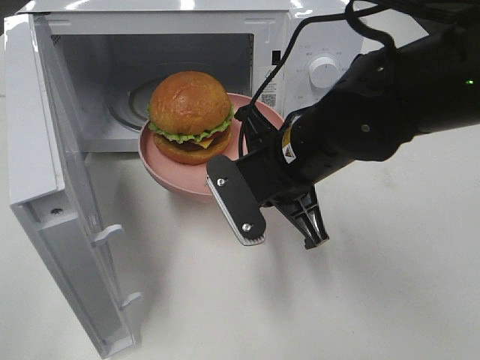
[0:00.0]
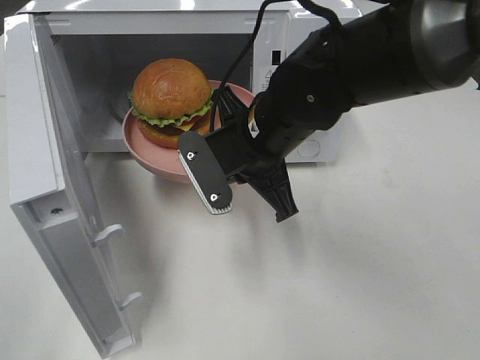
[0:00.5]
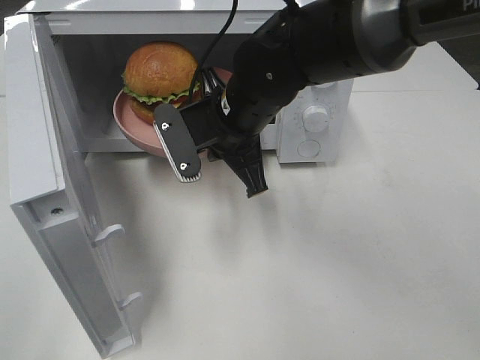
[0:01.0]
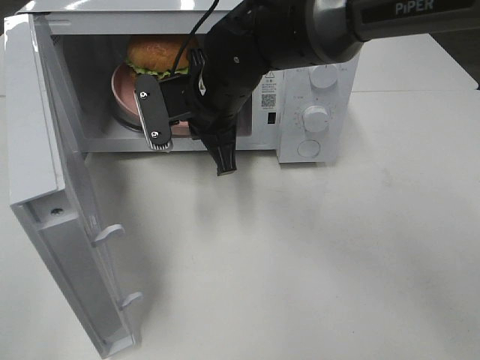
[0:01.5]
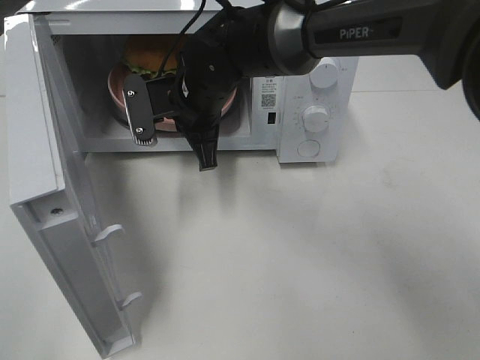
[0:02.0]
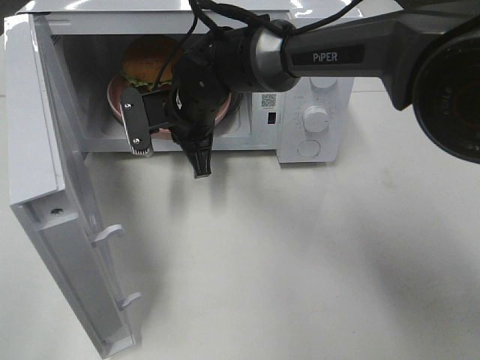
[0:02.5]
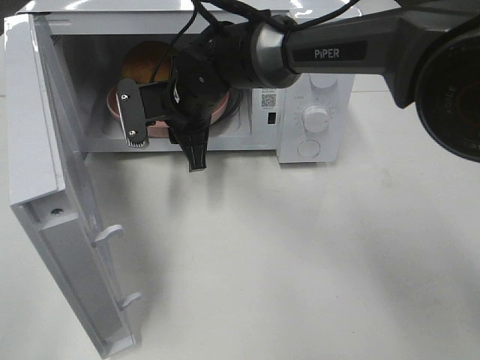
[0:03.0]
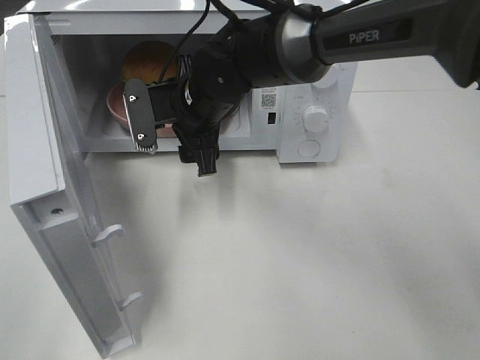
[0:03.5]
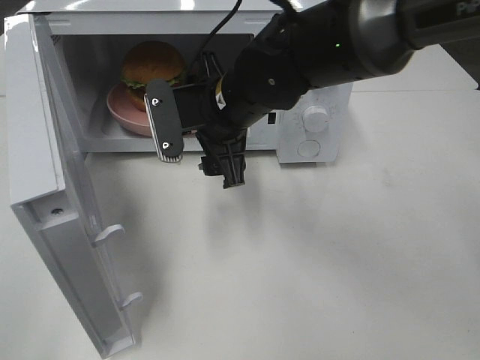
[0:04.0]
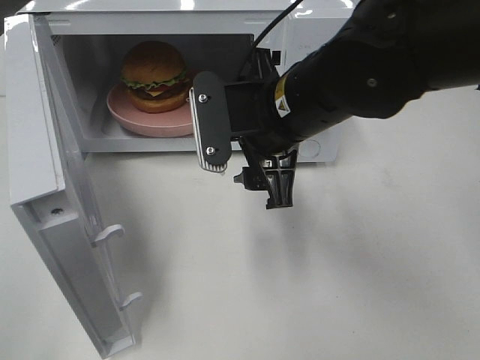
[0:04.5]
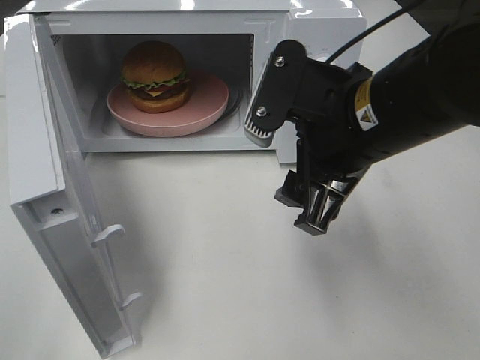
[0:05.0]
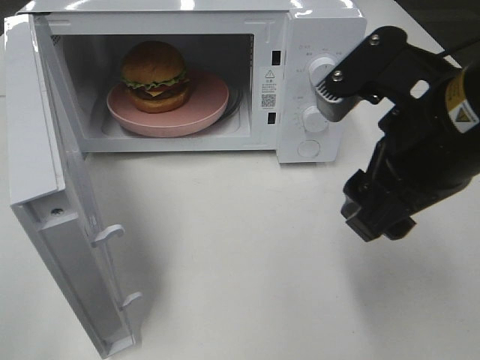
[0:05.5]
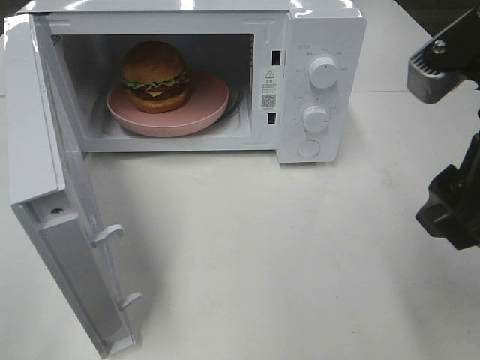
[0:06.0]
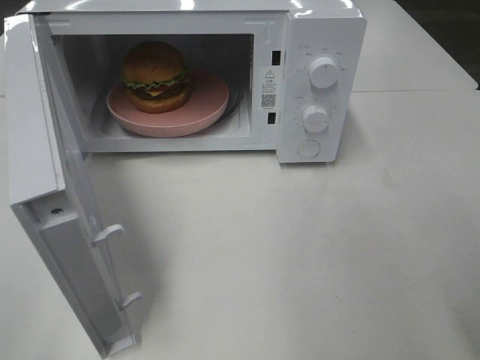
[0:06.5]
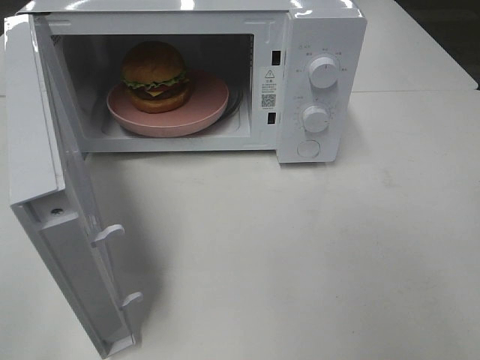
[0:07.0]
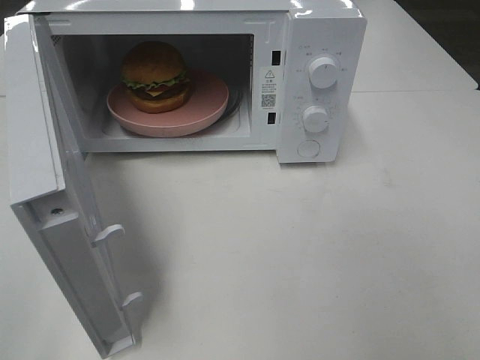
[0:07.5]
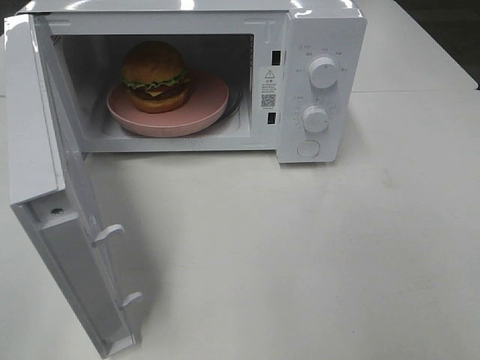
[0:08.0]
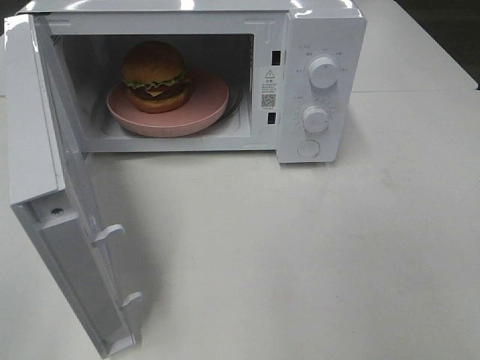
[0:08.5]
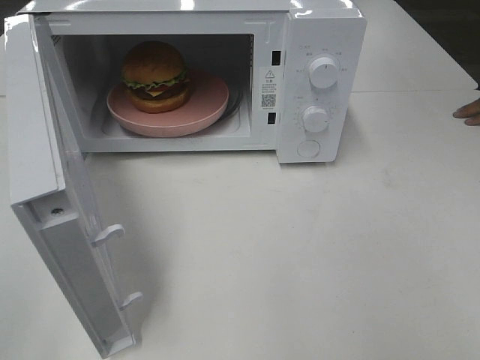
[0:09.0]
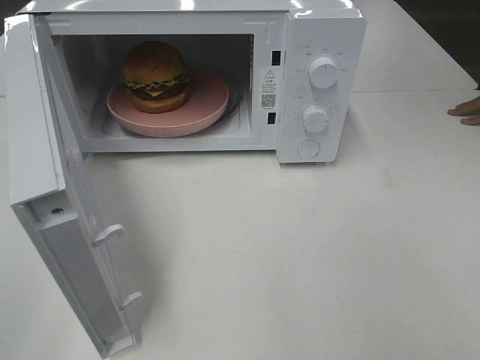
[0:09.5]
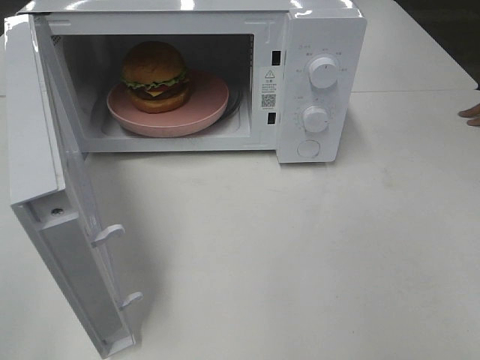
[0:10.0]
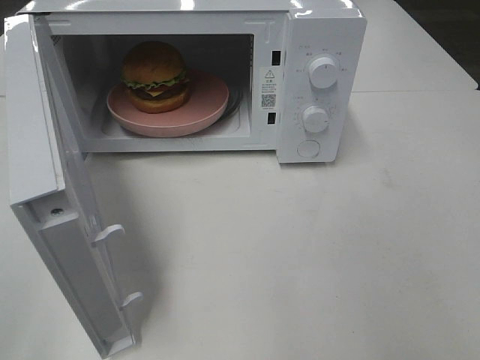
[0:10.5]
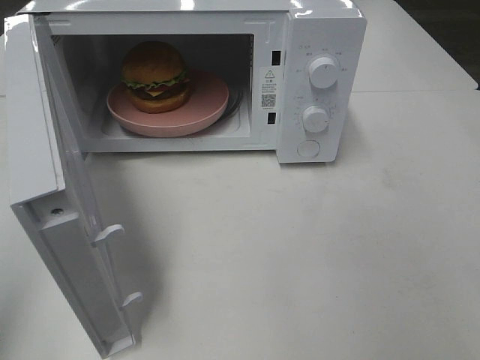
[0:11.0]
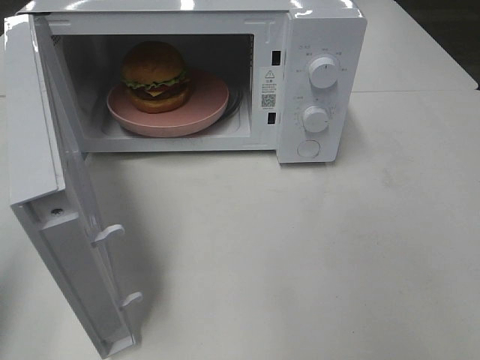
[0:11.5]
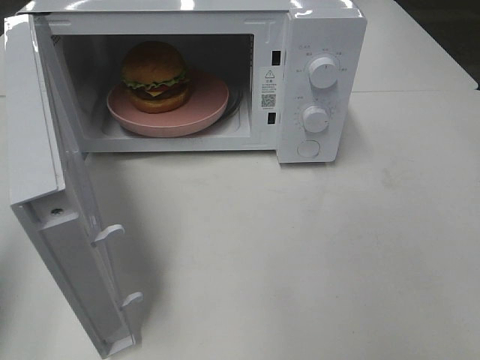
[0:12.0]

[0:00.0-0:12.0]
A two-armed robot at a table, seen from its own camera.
Task of the whole recording: Heat the burger.
Step, 0.0 to 3.0 s: Right hand: place the plate in the microwave.
0.0 to 2.0 s: The right gripper is displaced forward and to the left by about 15 cm.
2.0 to 4.0 s: The right gripper is displaced backward by approximately 5 cm, and opens.
4.0 to 6.0 s: The right gripper is displaced backward, to the right and upward by some 25 cm.
6.0 to 8.0 s: The right gripper shifts about 20 cm backward and to the right.
8.0 to 10.0 s: The two grippers keep their place.
10.0 to 12.0 s: The left gripper shifts approximately 15 cm forward, and closes its fingers.

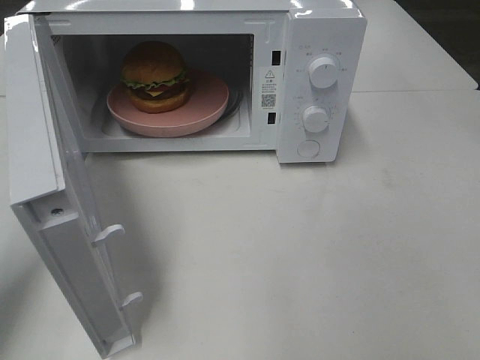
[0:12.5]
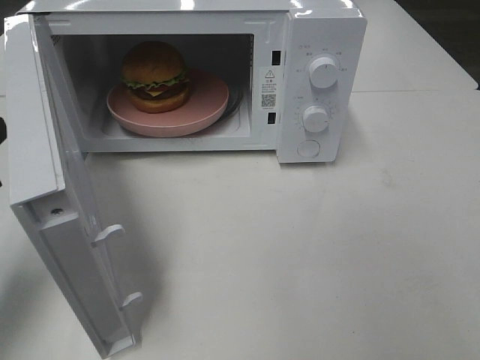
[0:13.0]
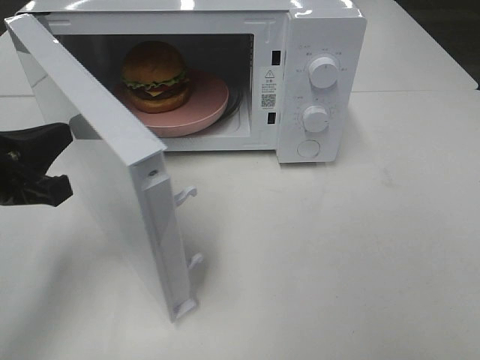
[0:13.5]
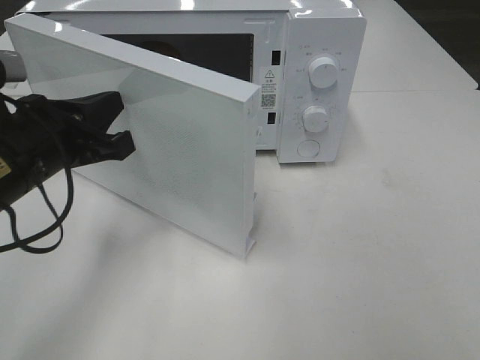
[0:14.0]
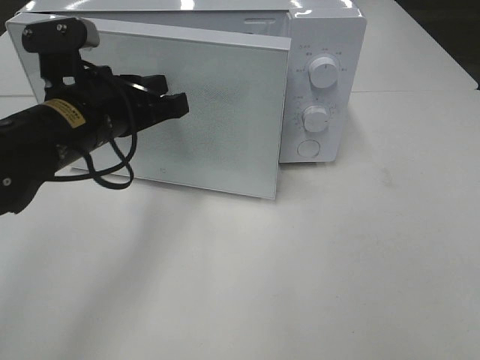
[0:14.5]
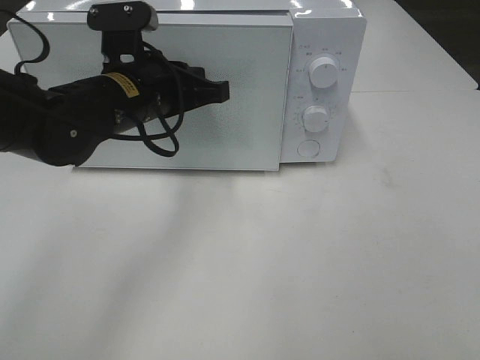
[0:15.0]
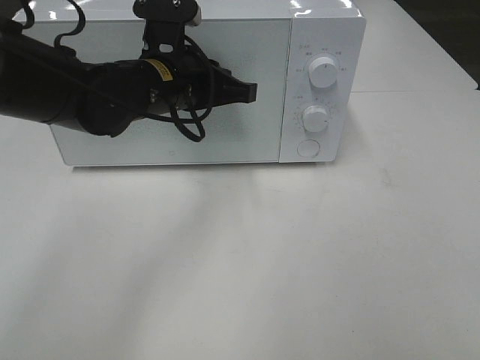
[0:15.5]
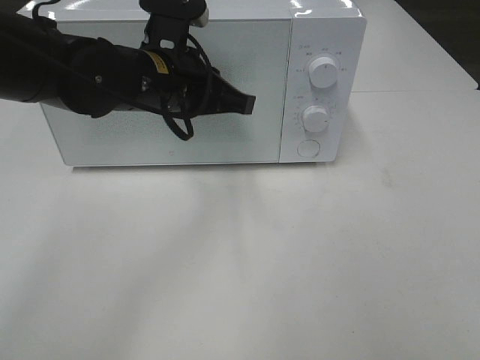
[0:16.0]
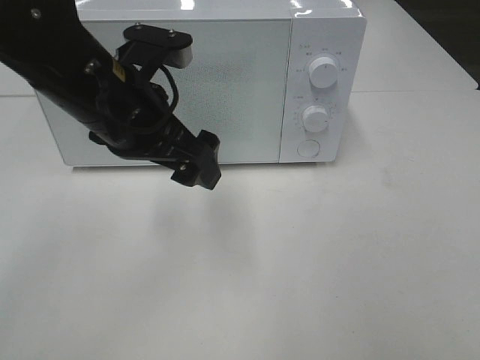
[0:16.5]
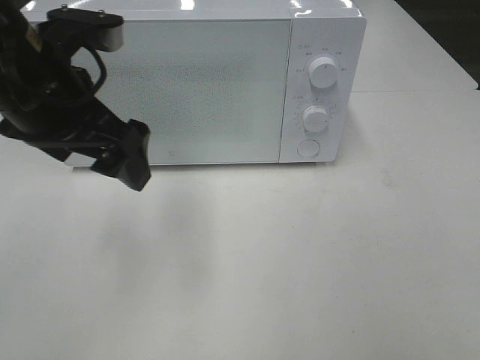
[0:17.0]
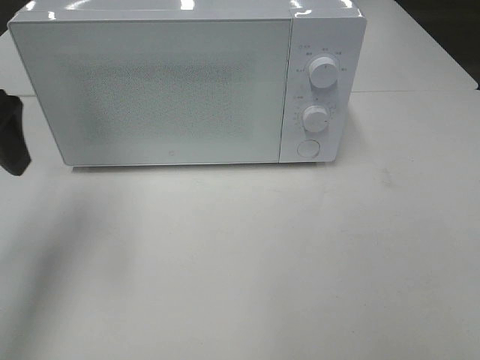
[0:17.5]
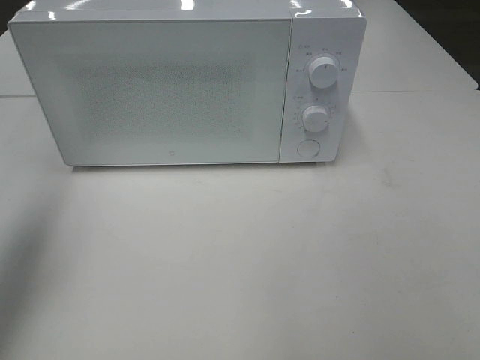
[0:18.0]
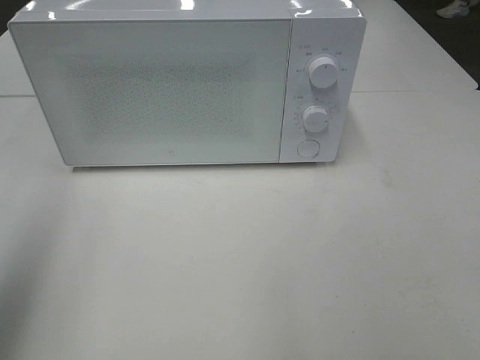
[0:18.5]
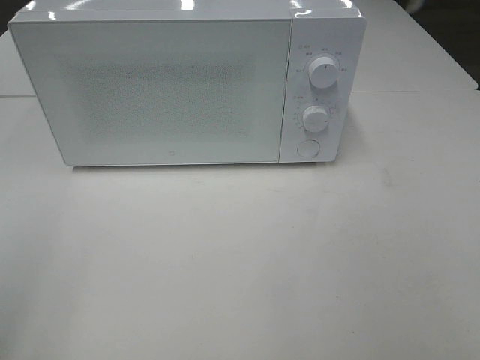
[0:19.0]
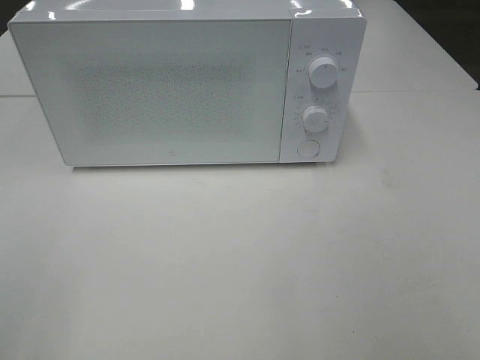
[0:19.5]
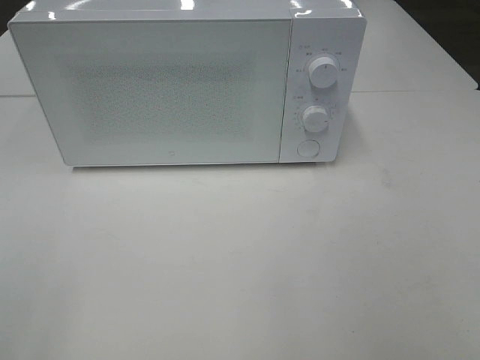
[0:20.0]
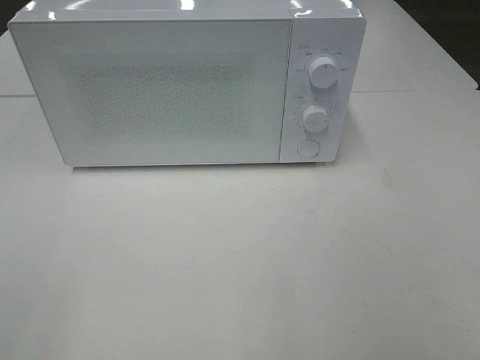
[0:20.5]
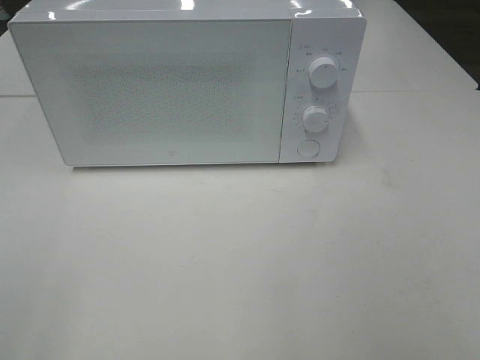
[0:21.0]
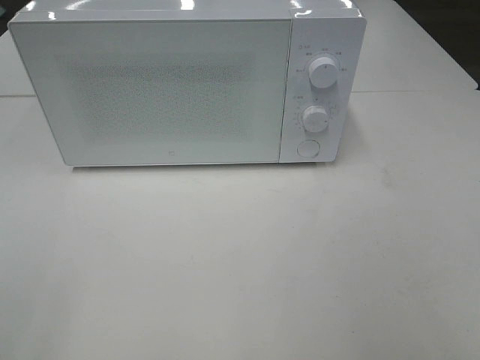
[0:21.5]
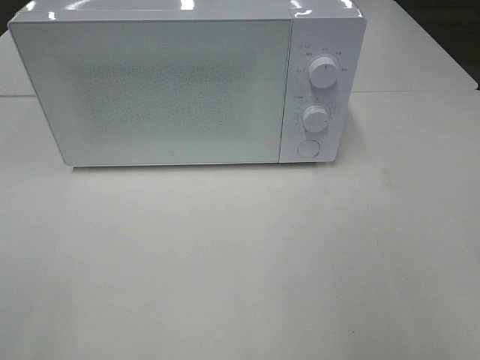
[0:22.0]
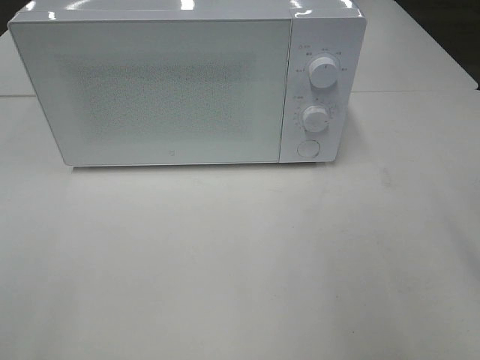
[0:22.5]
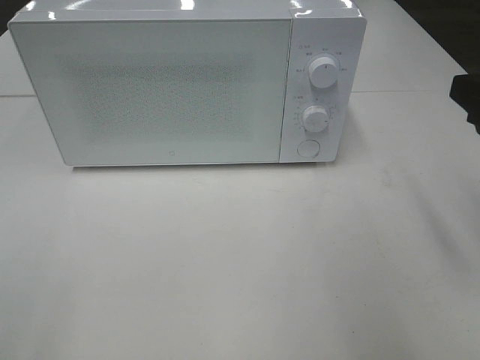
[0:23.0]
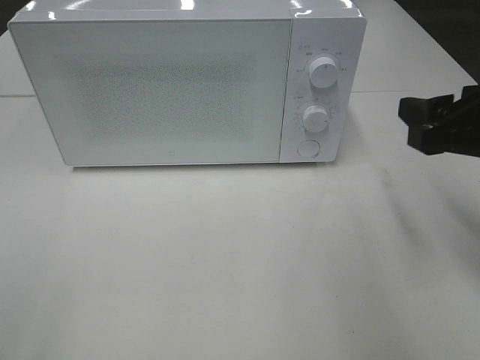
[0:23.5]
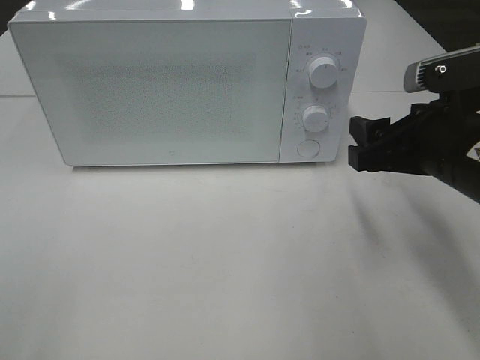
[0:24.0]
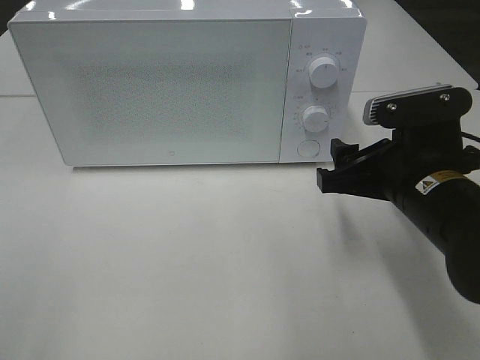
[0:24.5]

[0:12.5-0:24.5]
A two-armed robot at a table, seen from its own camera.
Task of the whole recording: Heat the burger.
Step, 12.5 to 15.5 s: Left hand: close the microwave door.
12.5 to 14.5 s: The left gripper shifts roughly 20 cm to the right and forward.
14.5 to 16.5 s: The left gripper travels forward and back again, approximately 5 cm each way, and opens its fingers.
16.5 to 18.5 s: The left gripper shifts about 30 cm to the left, upward and backward.
18.5 to 20.5 s: The left gripper heads backward and downward, covering about 20 cm.
22.5 to 24.5 s: The right gripper goes about 20 cm downward, to the left and forward.

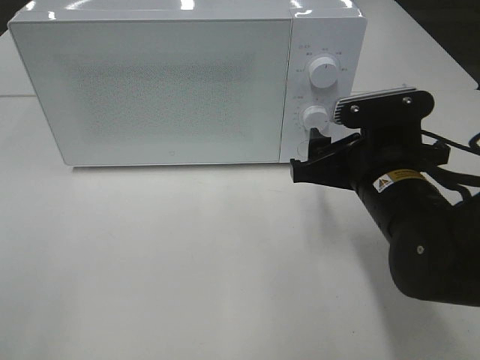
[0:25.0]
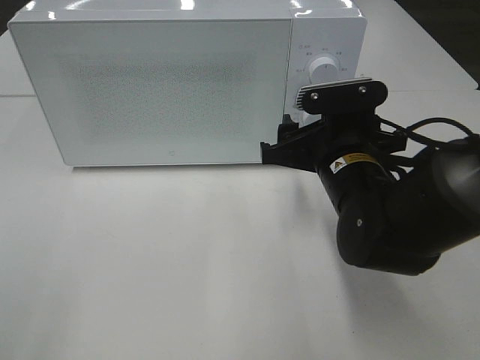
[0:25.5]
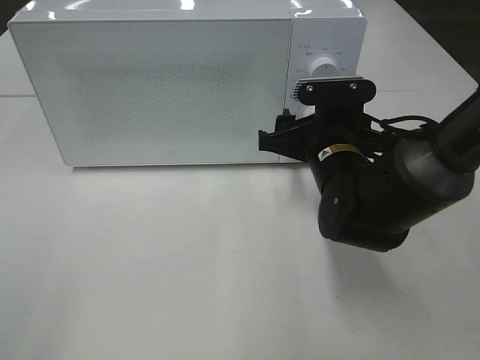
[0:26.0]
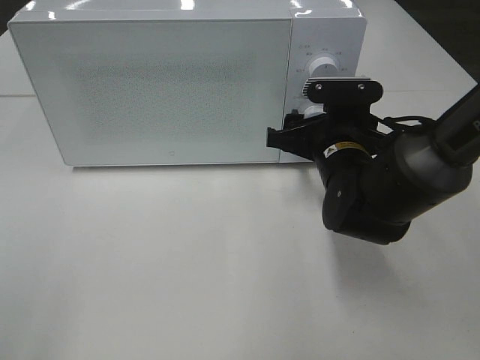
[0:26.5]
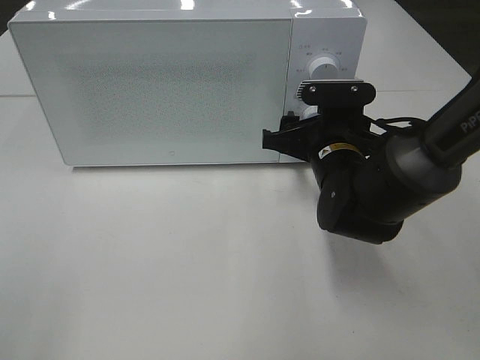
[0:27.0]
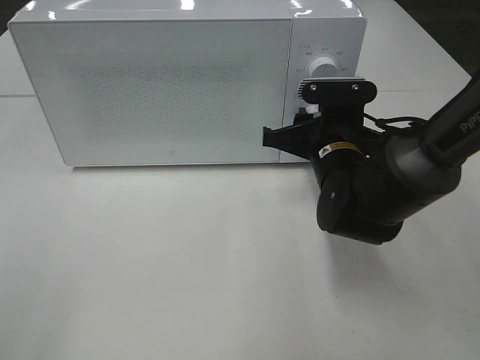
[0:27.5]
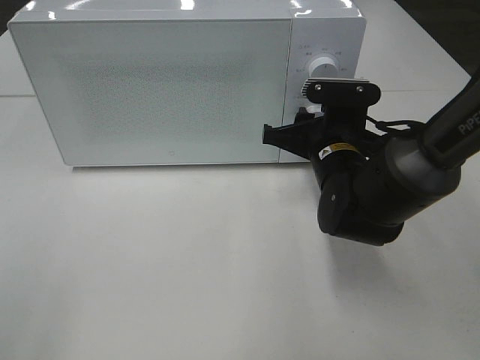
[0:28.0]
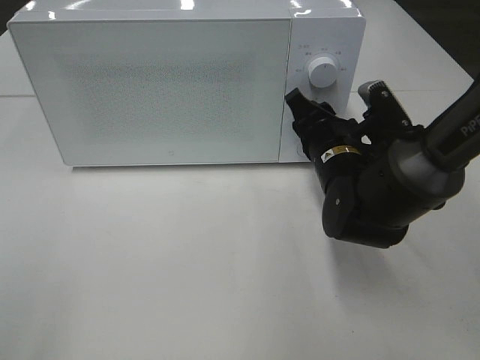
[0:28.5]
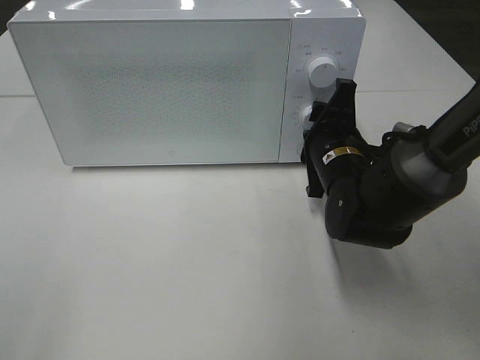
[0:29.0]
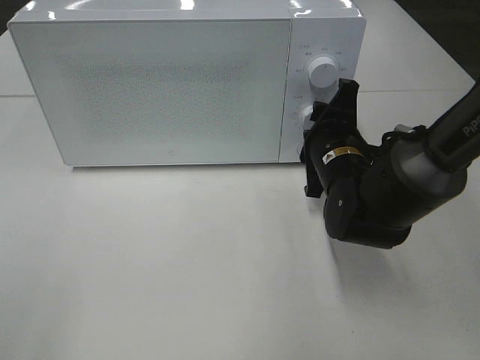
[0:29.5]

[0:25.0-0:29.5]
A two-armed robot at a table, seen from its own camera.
Task of the whole recording: Heat the burger.
25.0 to 27.0 s: The right gripper is displaced forward by about 10 cm.
